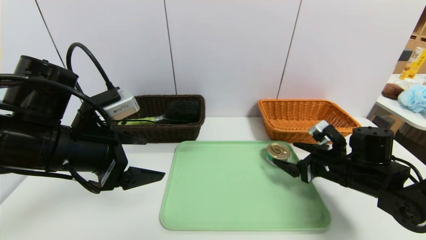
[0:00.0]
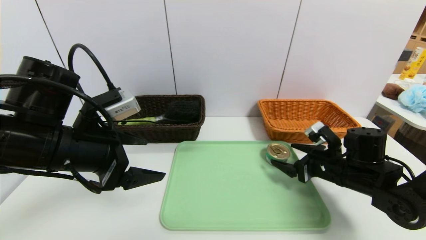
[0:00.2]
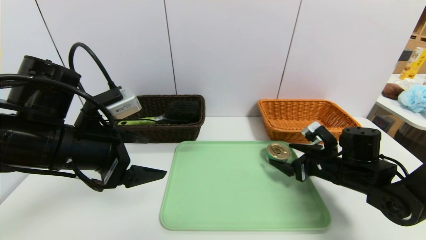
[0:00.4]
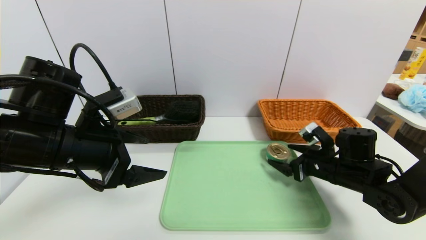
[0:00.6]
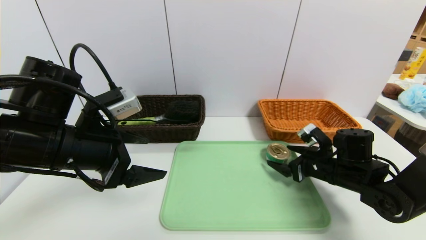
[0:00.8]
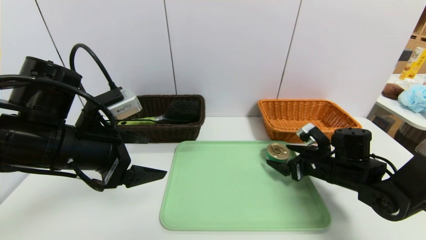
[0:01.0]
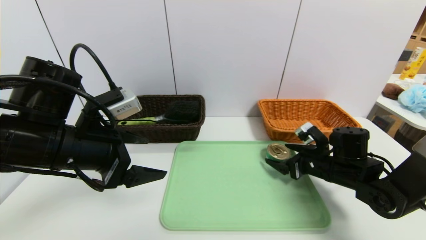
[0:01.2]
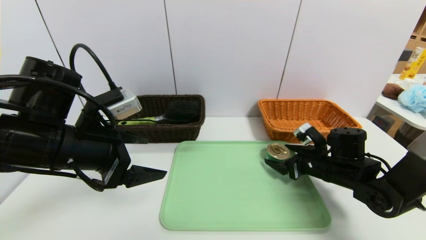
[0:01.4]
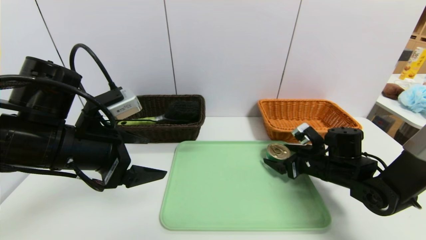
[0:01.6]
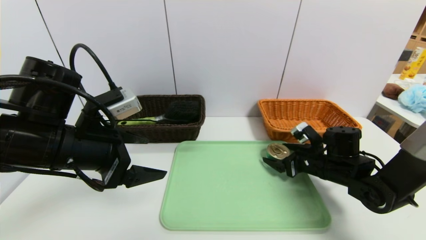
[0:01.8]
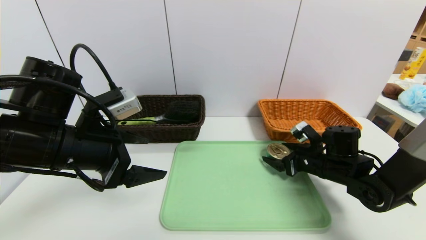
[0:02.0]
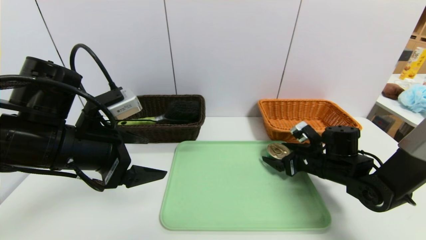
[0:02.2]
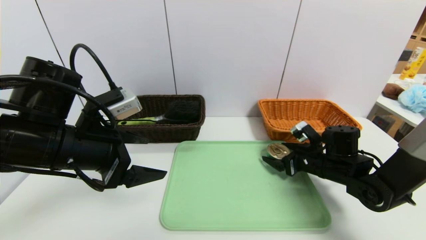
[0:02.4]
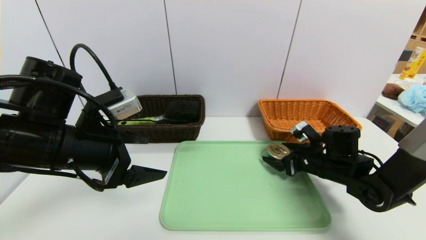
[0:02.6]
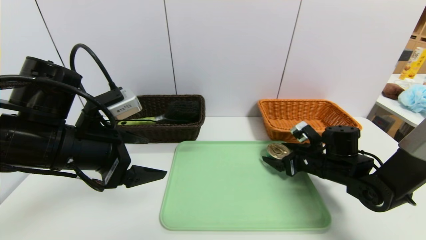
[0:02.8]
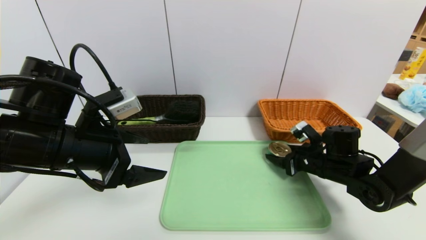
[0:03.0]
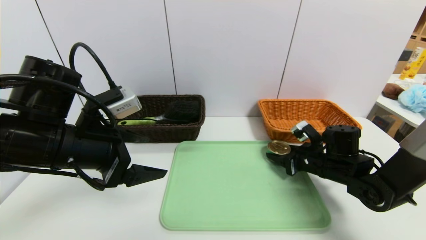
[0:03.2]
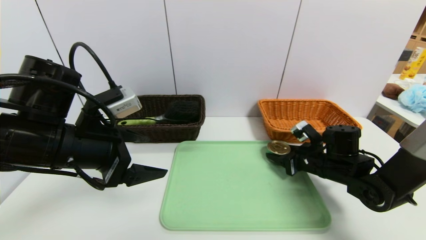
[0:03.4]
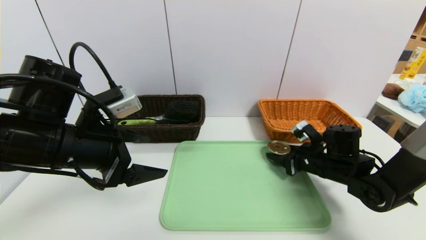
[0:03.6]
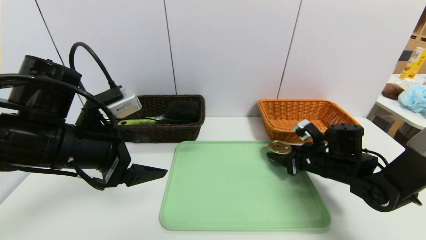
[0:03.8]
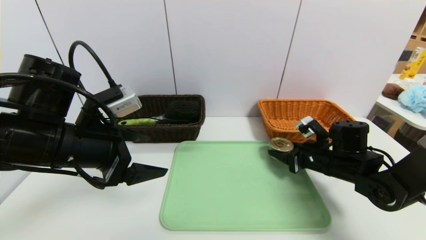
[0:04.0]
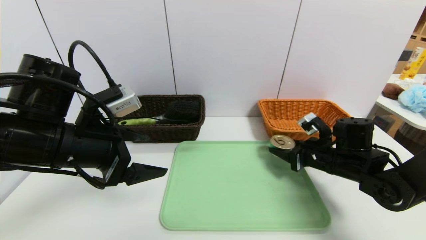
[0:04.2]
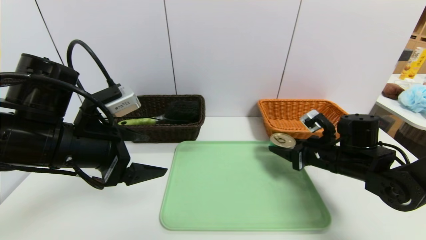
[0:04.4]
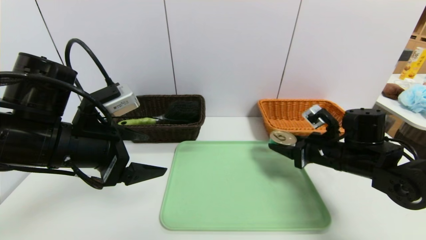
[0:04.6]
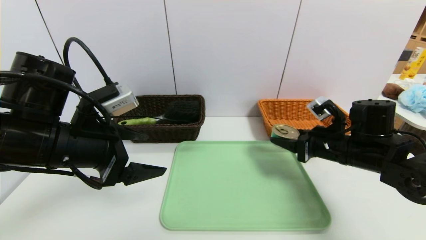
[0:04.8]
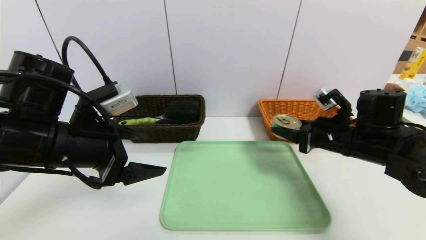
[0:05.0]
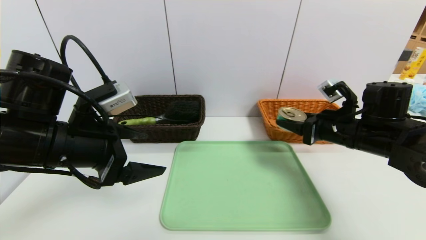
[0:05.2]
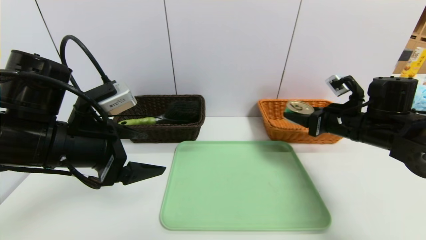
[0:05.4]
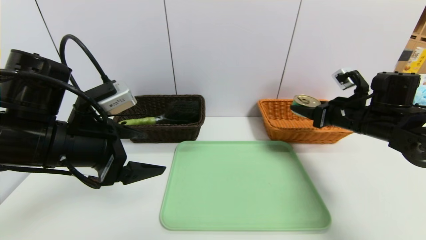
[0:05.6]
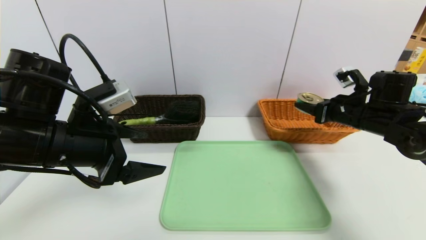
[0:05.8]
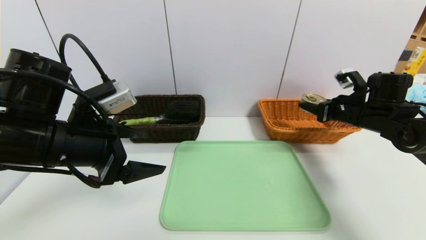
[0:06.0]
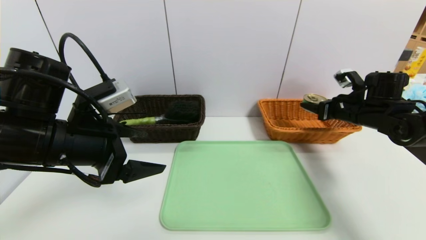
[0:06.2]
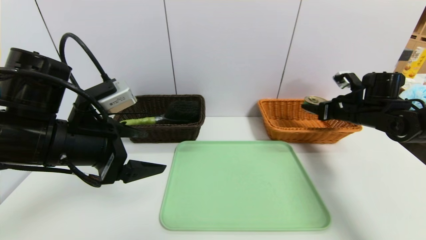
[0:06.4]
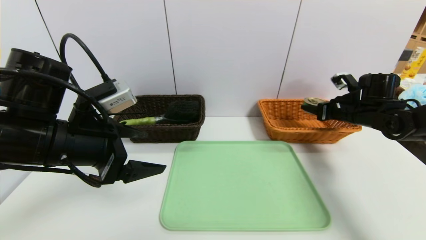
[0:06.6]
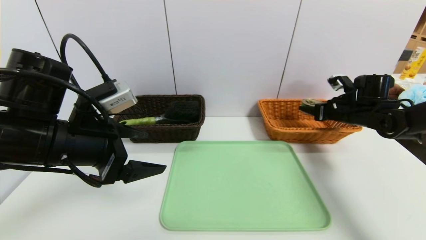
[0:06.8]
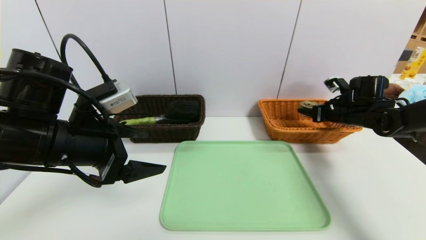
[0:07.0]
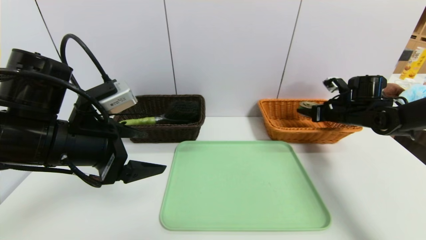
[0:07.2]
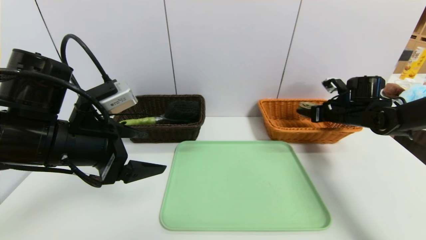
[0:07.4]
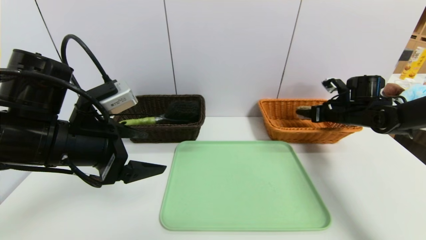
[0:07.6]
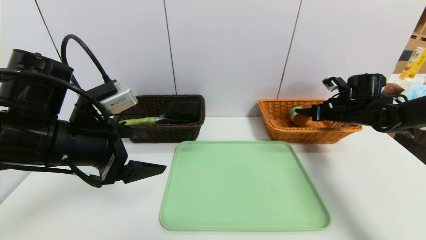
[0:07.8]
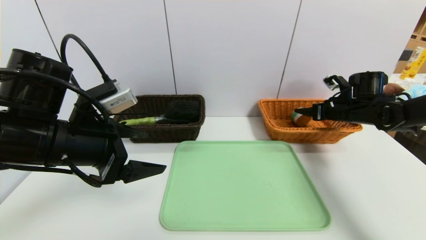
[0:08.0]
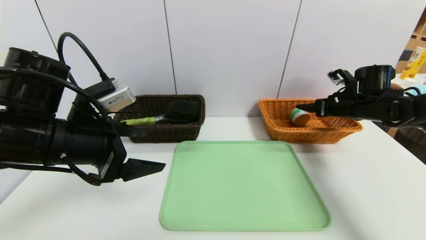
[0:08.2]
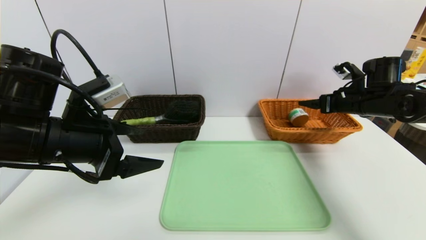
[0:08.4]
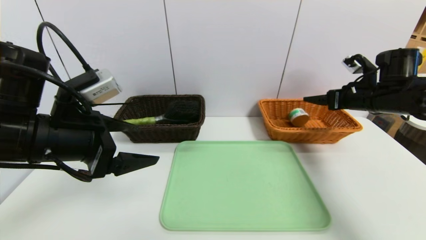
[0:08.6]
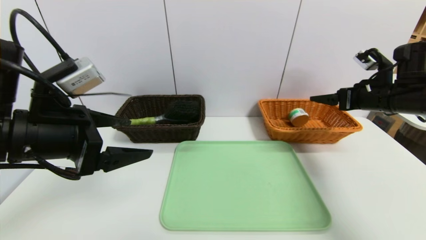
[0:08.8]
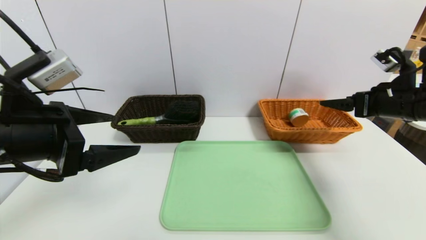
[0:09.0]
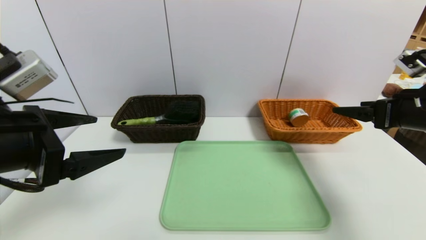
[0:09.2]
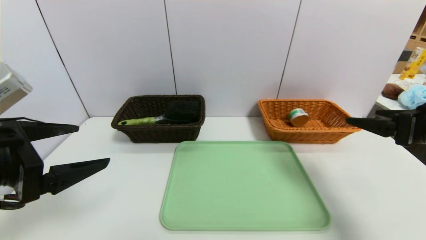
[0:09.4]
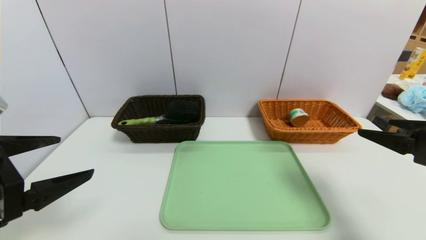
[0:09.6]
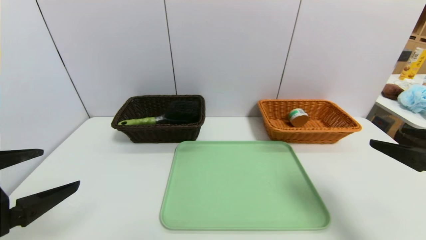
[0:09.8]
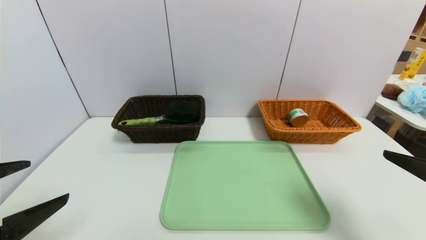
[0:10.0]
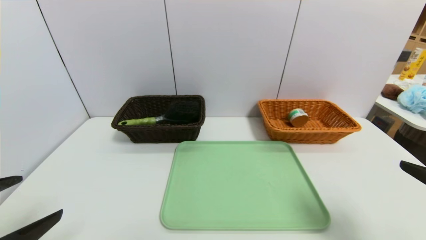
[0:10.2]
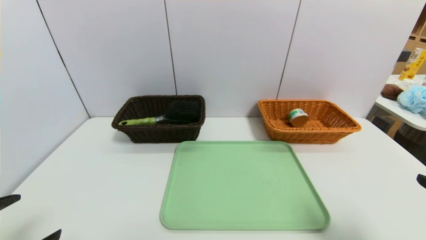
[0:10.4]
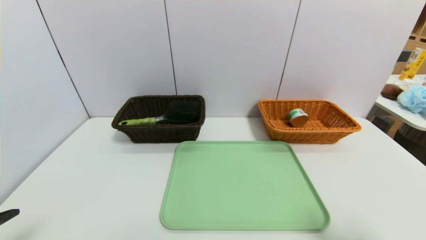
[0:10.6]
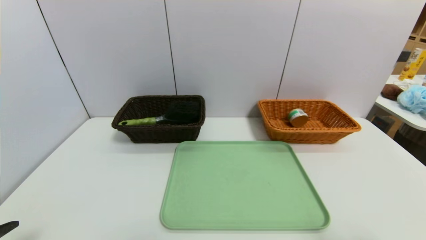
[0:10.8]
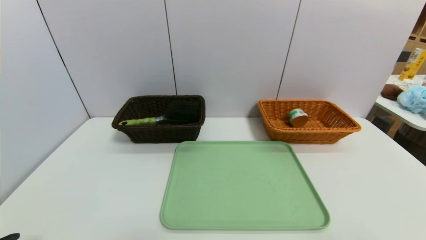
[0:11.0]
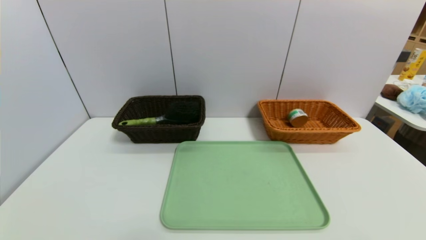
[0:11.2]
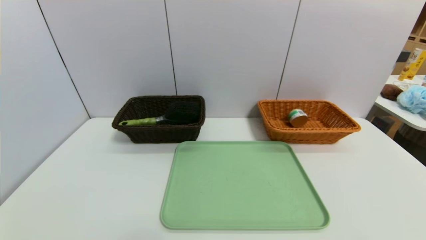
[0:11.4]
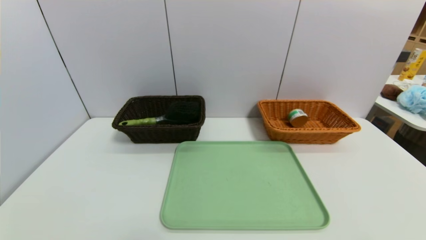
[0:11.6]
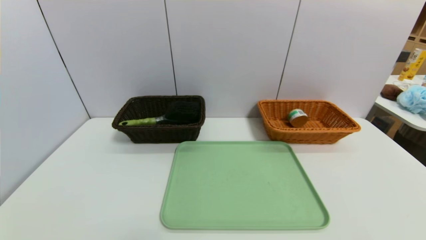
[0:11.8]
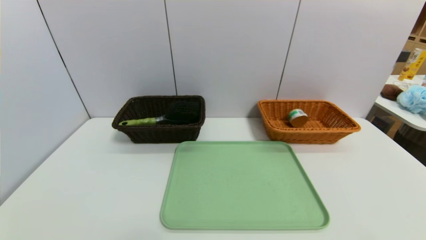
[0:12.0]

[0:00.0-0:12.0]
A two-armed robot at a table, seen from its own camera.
Task of the whole recording: place the food in the right basket with the right gripper, and place the non food items in the left basket with the left gripper.
Step, 0:00.0 to 0:08.2: Grasp the can and put it in the right basket.
0:00.0 to 0:01.6: The grippers stay close to where they were, moving slightly.
0:01.6 to 0:03.0: The right gripper closes up.
0:03.0 to 0:04.4: The grippers move only a little.
0:04.4 to 0:06.0: The right gripper shifts roughly 10 cm to the right, upward and forward.
0:06.0 to 0:07.6: The right gripper goes about 5 cm forward.
0:07.6 to 0:09.0: The left gripper ends up approximately 5 cm from where it was; the right gripper is displaced backward and upward by some 15 cm, and opens up.
0:09.0 to 0:10.4: The right gripper is displaced backward by approximately 25 cm; the left gripper moves backward, downward and to the left, about 15 cm.
0:10.4 to 0:12.0: Both grippers move downward and backward, approximately 10 cm.

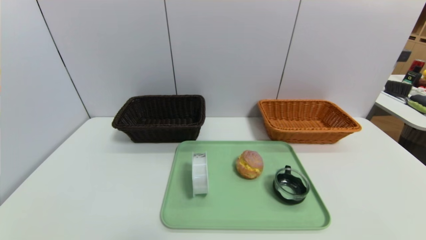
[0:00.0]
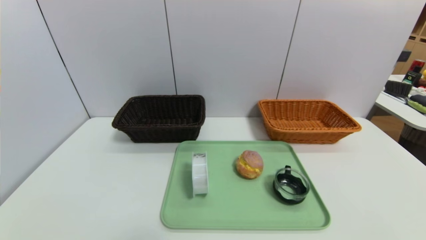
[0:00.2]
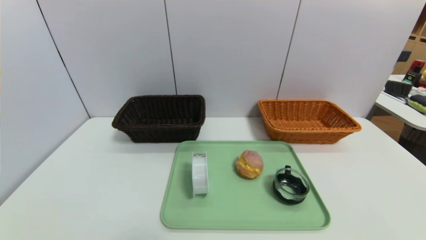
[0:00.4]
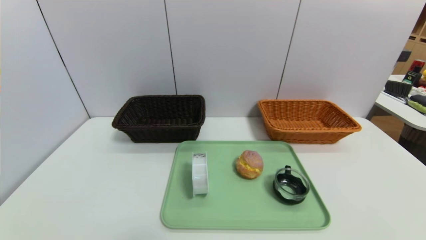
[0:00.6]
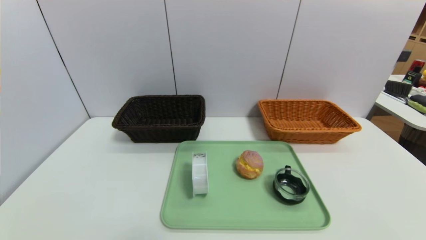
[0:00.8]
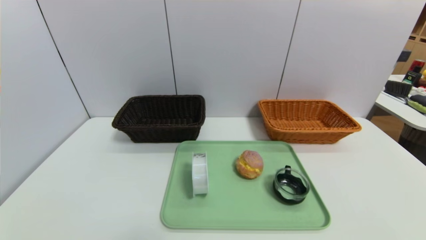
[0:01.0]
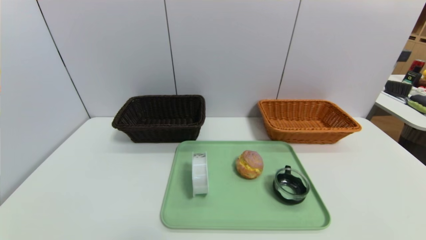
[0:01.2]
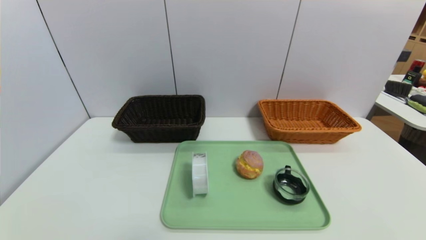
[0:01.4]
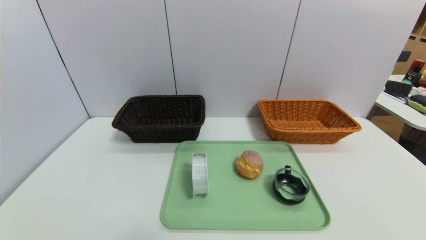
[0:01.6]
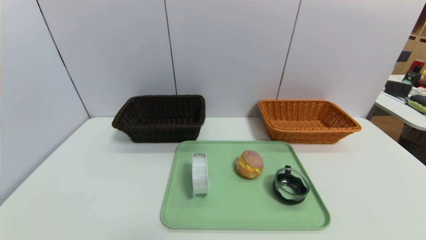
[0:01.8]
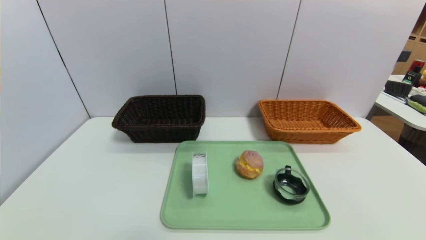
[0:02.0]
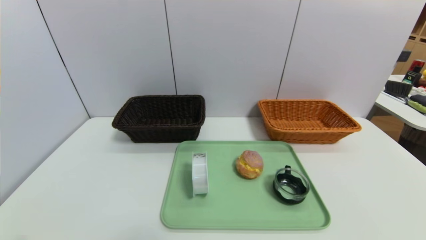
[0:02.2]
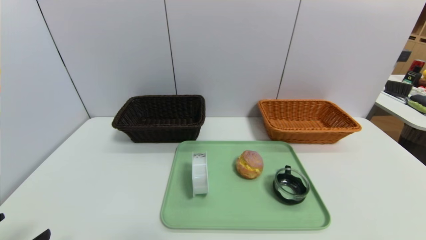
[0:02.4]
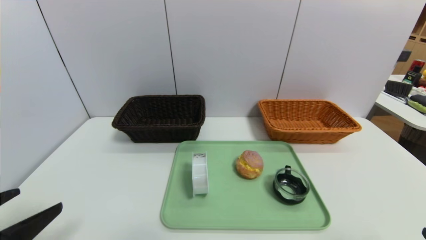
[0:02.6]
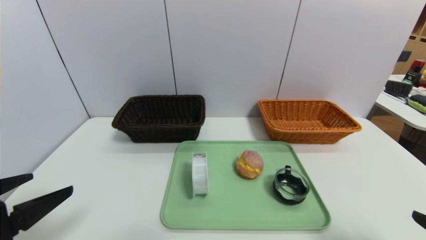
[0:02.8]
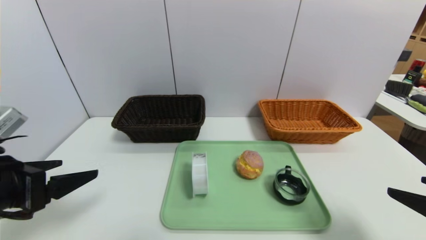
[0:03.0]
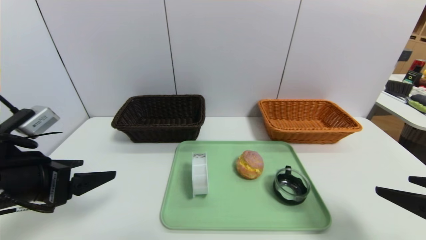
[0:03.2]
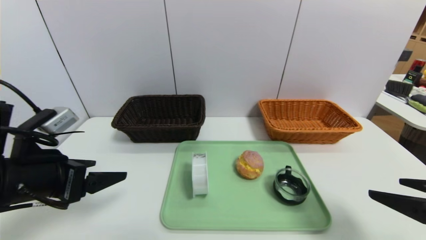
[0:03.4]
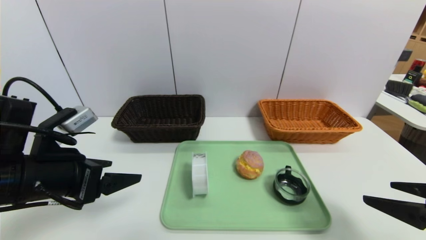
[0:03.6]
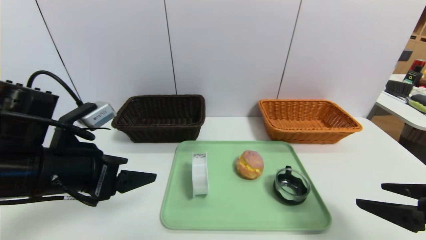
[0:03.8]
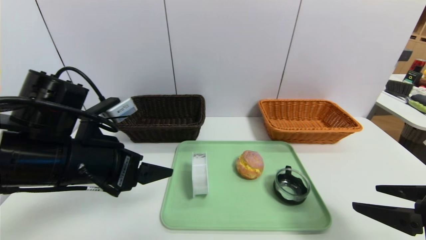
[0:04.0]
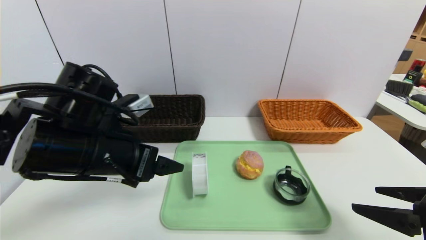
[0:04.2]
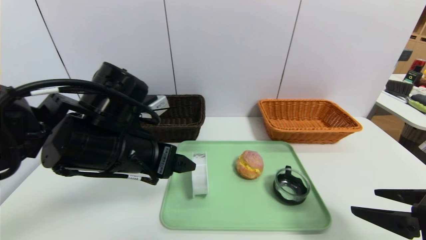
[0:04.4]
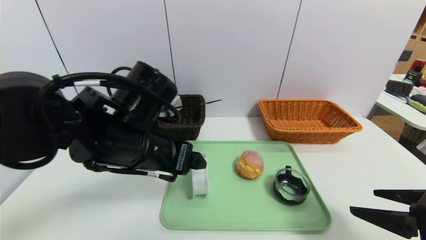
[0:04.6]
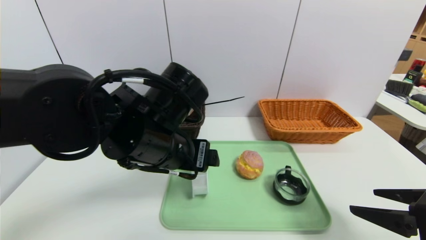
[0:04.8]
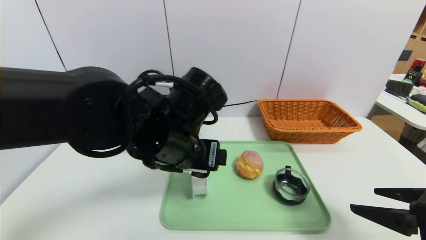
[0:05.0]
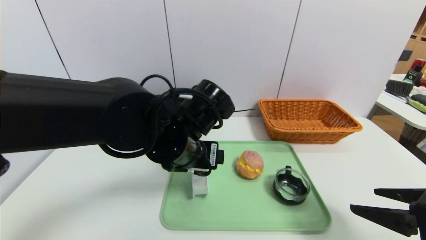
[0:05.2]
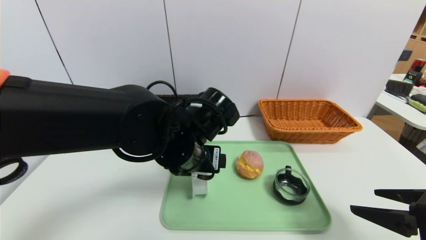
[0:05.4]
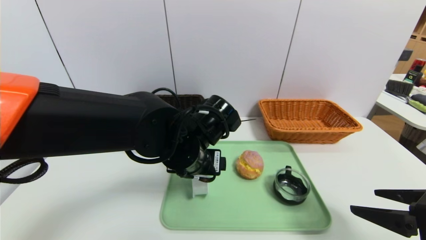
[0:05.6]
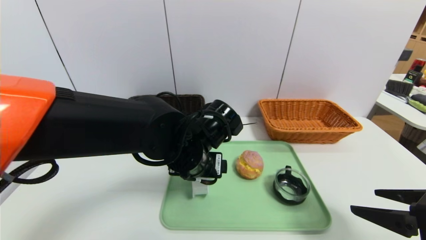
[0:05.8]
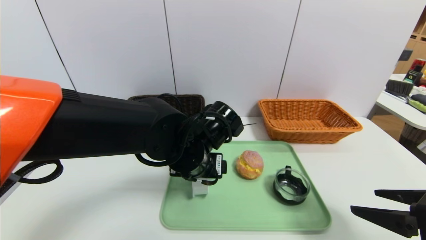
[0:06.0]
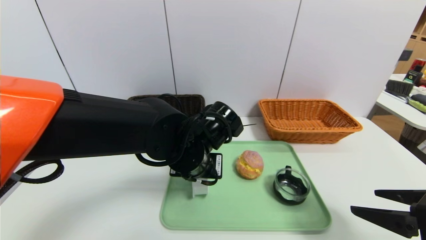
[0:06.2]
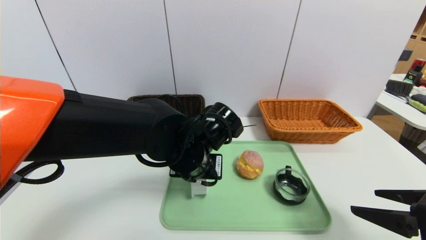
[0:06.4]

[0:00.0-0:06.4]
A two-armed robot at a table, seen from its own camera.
Task of the whole recording: place the food in the right basket with the right gripper, and place the non food items in the left basket with the left gripper.
0:00.0 to 0:01.6: The two grippers keep their place.
0:01.6 to 0:03.2: The left gripper travels forward and upward by some 20 cm; the right gripper travels upward and forward by about 20 cm.
0:03.2 to 0:04.8: The left gripper shifts about 20 cm to the right.
0:04.8 to 0:06.4: The left gripper is displaced downward by approximately 5 cm, and closes up.
